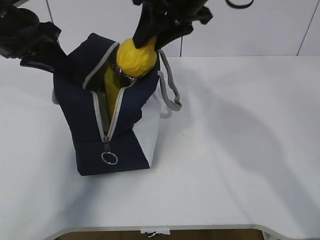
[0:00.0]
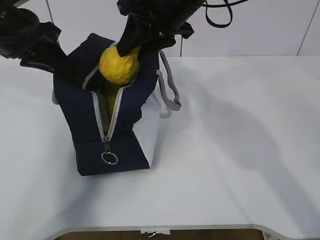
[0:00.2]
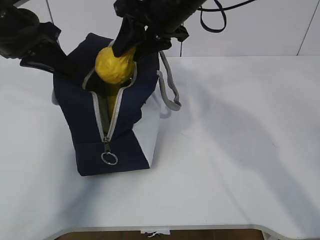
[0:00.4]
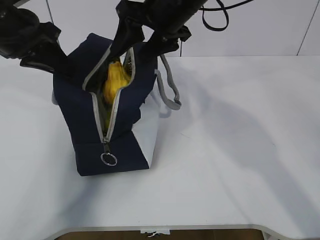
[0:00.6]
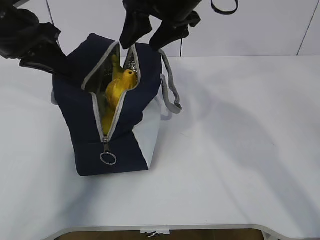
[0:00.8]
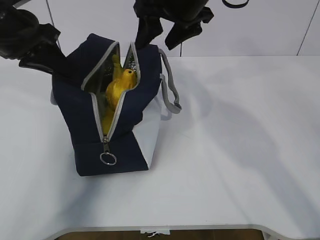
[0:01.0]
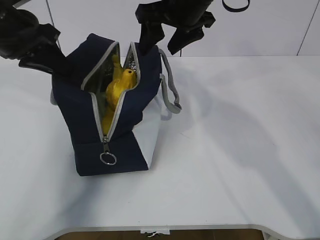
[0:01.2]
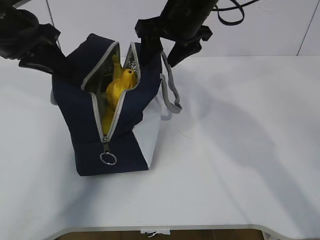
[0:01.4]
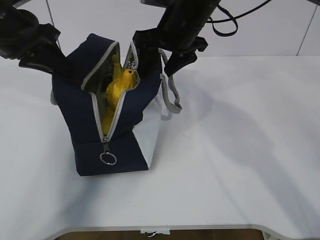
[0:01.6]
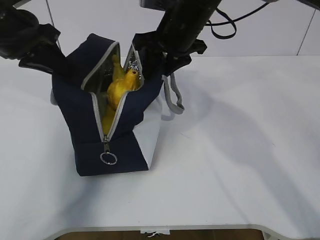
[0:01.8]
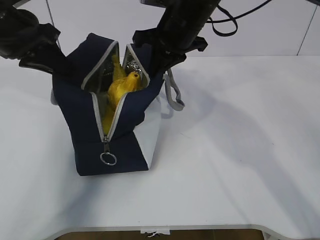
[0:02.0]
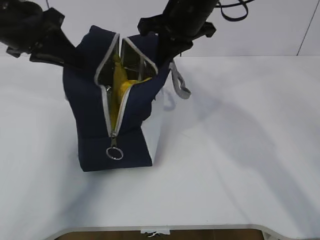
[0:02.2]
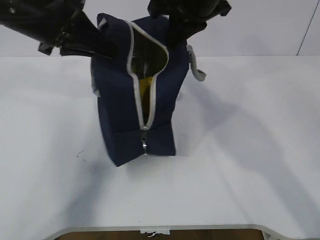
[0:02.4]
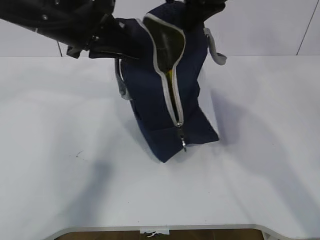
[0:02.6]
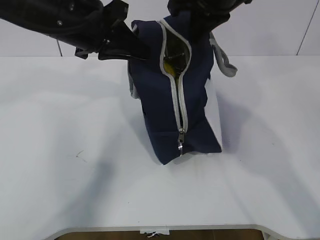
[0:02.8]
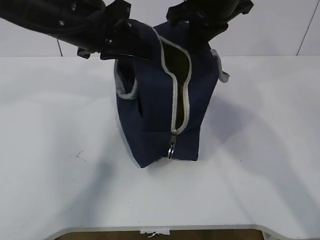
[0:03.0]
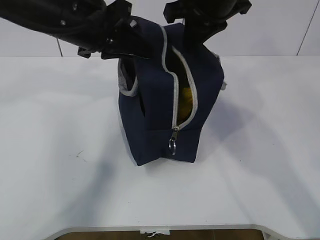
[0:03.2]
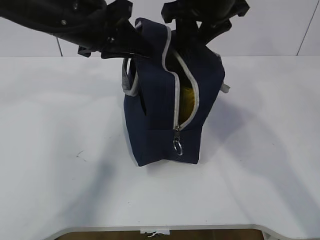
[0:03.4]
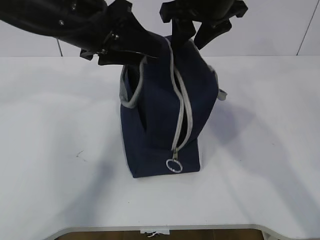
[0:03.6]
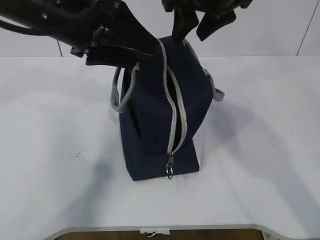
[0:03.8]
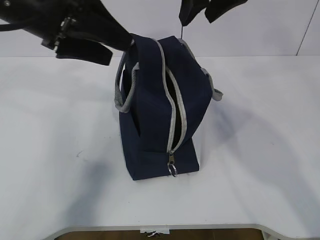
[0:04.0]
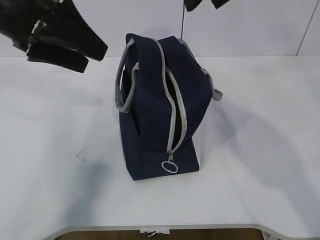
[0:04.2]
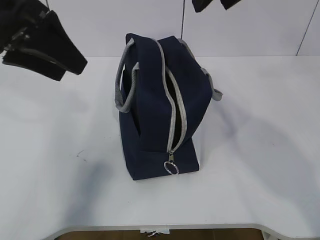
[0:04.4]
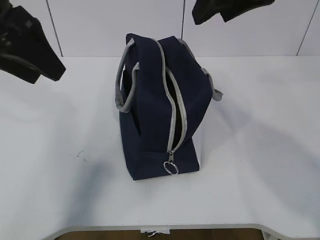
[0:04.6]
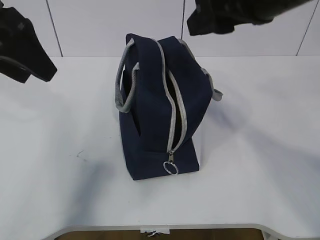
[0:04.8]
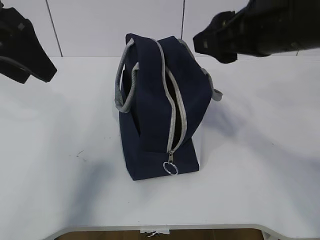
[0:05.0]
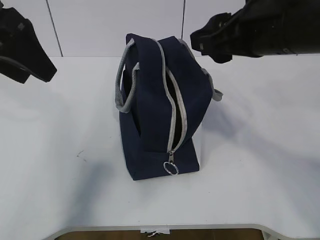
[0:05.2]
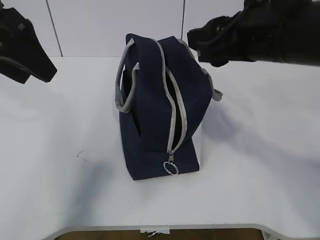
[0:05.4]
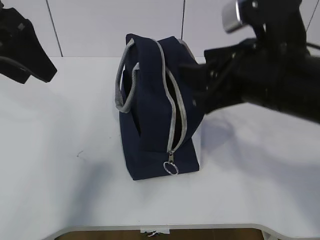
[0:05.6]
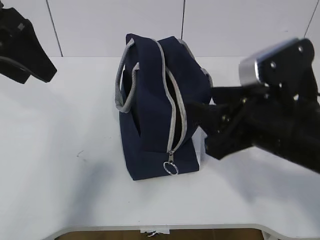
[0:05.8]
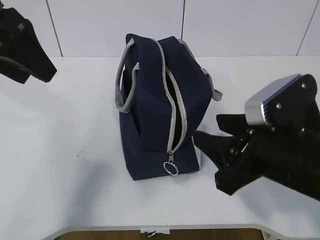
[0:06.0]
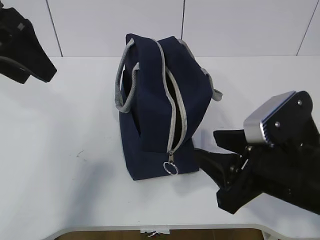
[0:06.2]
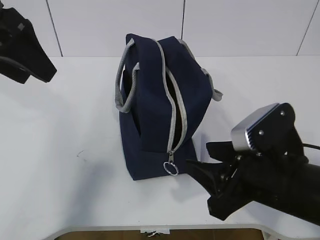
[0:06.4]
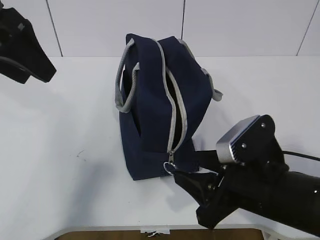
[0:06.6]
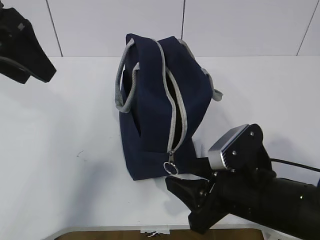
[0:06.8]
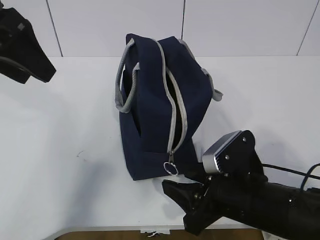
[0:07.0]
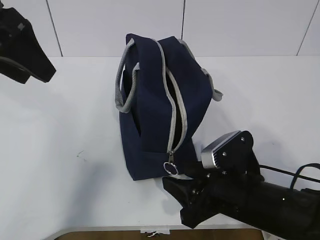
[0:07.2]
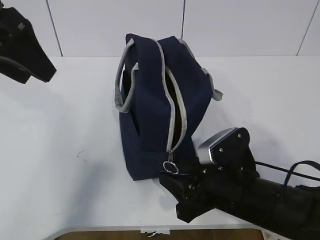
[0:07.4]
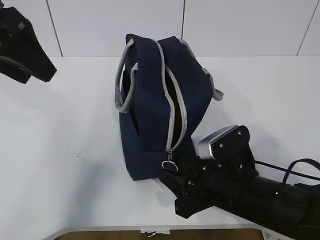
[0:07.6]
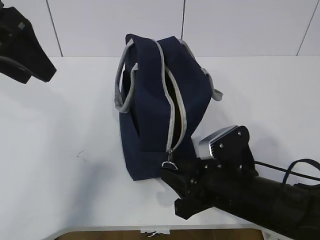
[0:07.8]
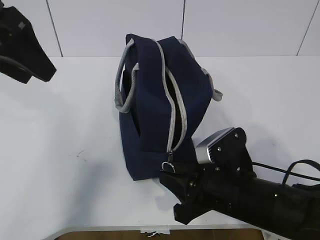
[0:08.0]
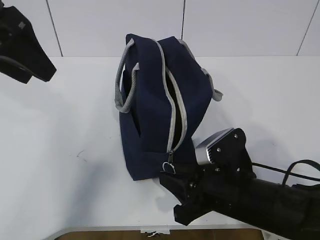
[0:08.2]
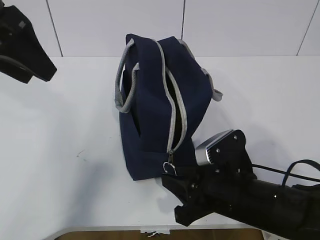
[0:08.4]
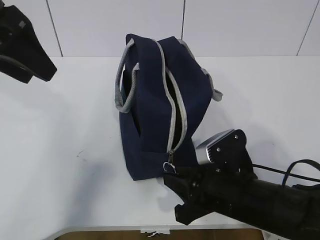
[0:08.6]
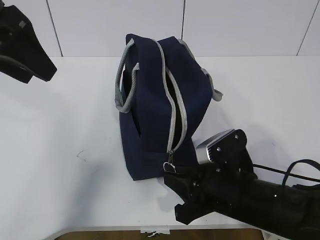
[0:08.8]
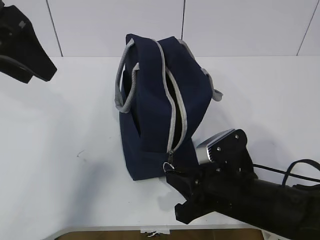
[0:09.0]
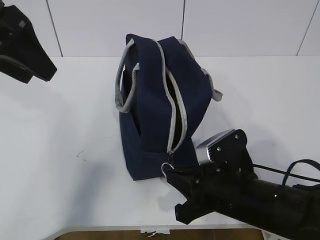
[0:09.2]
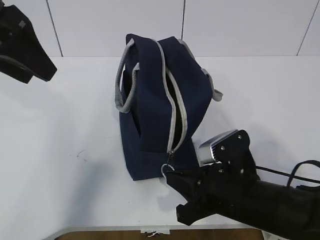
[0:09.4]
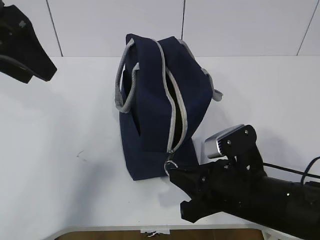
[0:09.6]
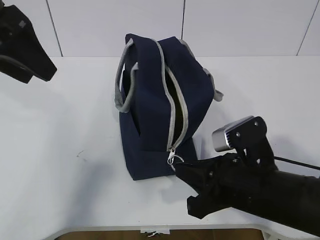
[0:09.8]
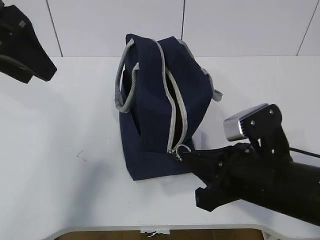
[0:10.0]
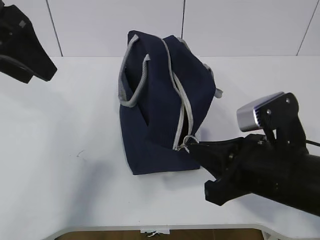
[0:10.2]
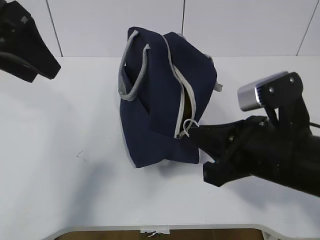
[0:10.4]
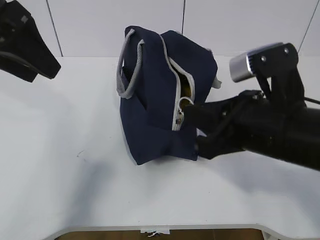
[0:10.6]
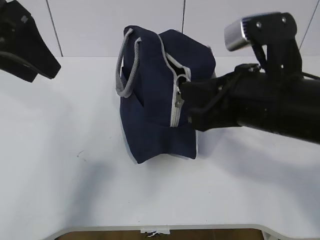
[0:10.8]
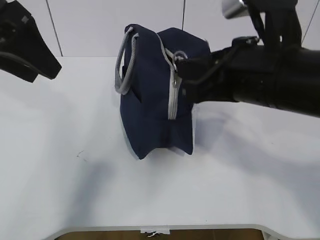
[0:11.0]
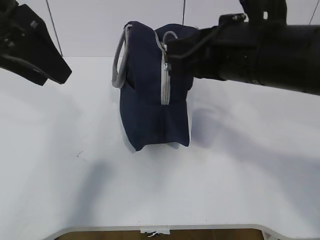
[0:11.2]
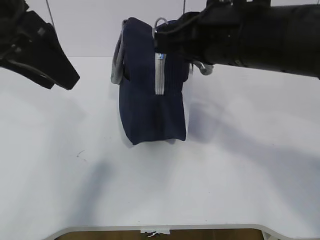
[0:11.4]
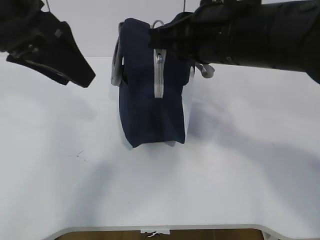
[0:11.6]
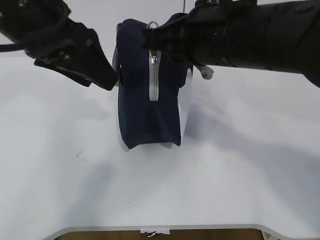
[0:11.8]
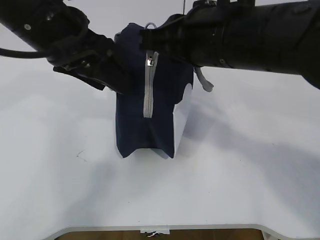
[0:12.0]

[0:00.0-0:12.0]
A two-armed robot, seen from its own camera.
0:00.0 to 0:01.6: The right gripper shifts about 5 cm downward, and opens its fingers.
0:01.6 to 0:03.0: The right gripper is displaced upward by some 5 cm, and closes; the left gripper heads to the right, covering roughly 10 cm.
0:03.0 to 0:04.4: The left gripper travels to the left by about 10 cm, and opens. Meanwhile the right gripper shifts roughly 10 cm upward and backward, and opens.
0:04.4 to 0:06.0: The right gripper heads downward and backward, covering some 25 cm.
0:06.0 to 0:07.6: The right gripper goes roughly 10 cm downward.
0:07.6 to 0:09.0: The right gripper closes up.
0:09.0 to 0:10.4: The right gripper is displaced upward by some 10 cm.
0:10.4 to 0:12.0: The left gripper moves to the right, roughly 10 cm; the right gripper travels upward, forward and to the left by approximately 15 cm.

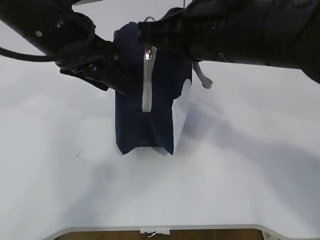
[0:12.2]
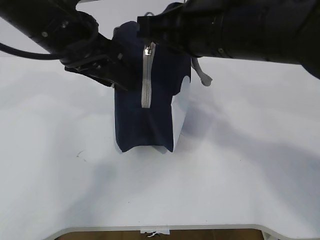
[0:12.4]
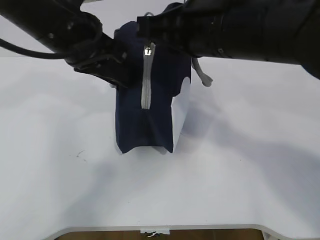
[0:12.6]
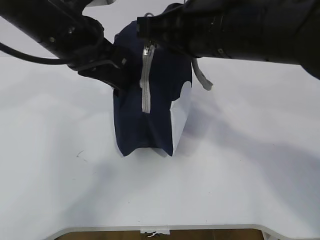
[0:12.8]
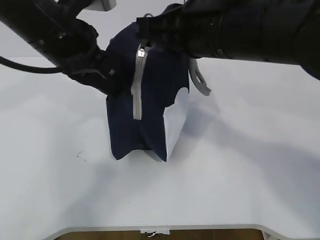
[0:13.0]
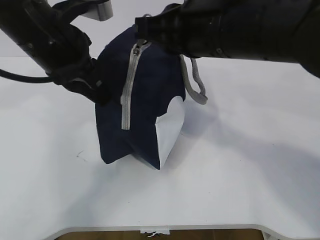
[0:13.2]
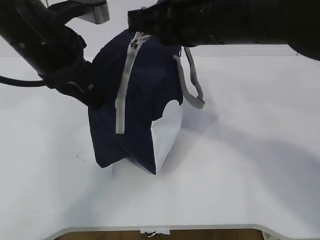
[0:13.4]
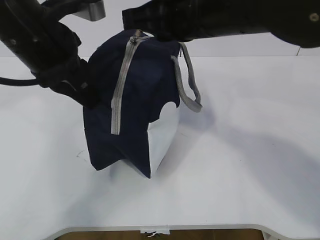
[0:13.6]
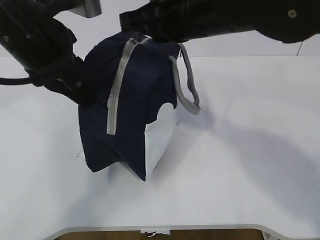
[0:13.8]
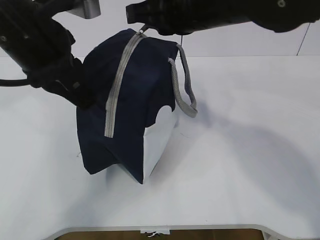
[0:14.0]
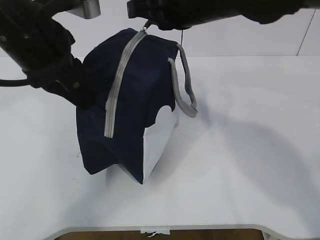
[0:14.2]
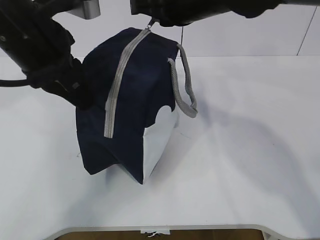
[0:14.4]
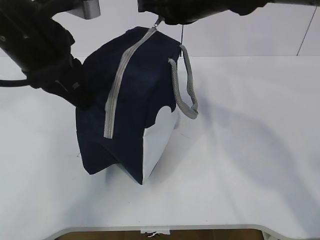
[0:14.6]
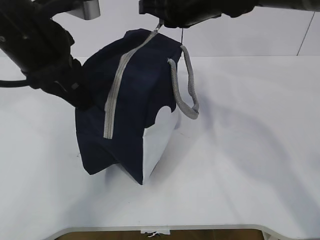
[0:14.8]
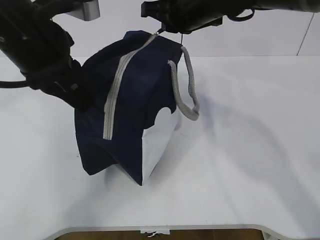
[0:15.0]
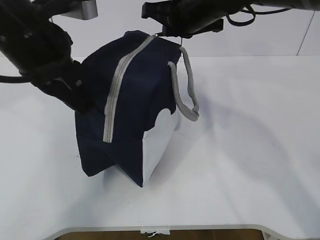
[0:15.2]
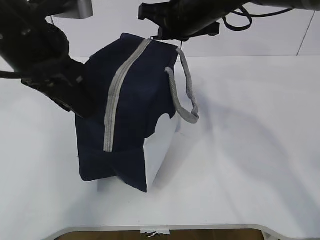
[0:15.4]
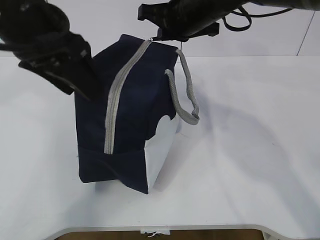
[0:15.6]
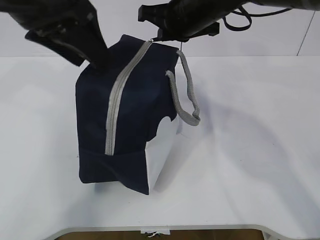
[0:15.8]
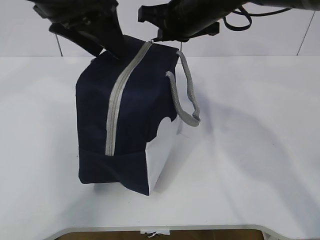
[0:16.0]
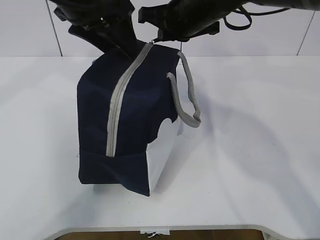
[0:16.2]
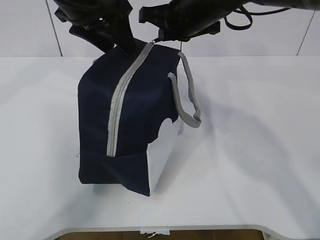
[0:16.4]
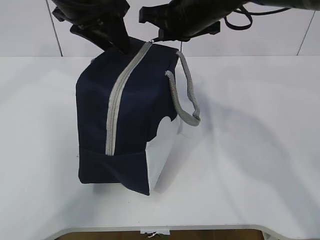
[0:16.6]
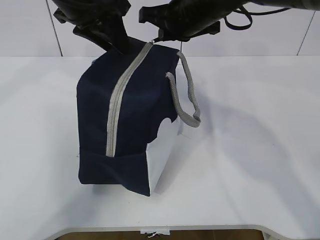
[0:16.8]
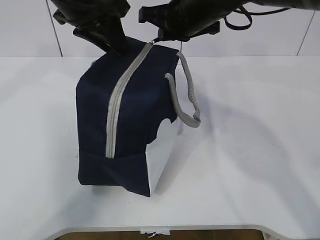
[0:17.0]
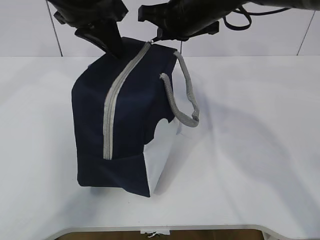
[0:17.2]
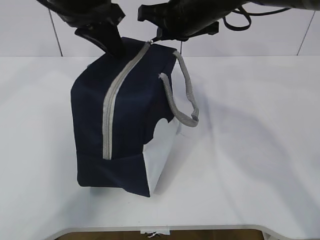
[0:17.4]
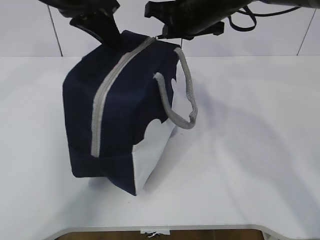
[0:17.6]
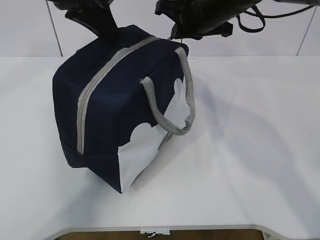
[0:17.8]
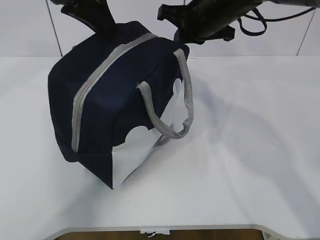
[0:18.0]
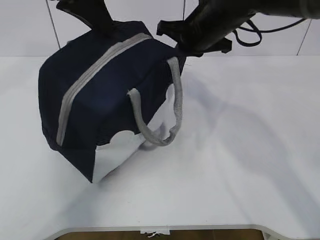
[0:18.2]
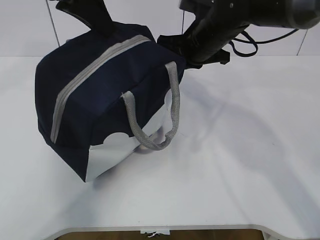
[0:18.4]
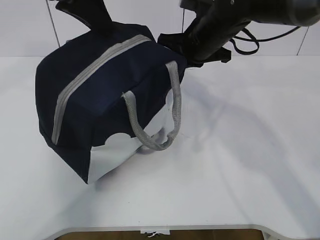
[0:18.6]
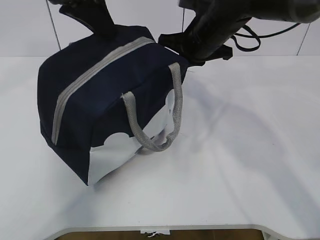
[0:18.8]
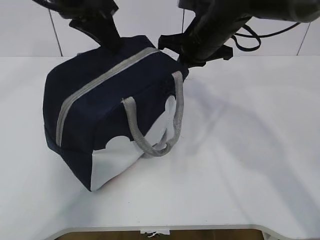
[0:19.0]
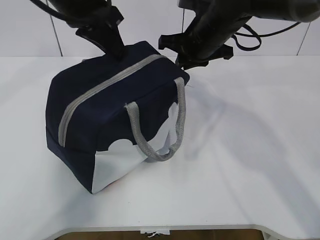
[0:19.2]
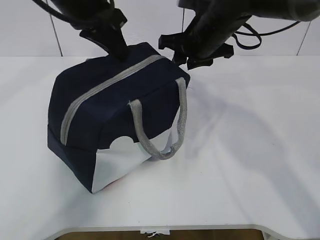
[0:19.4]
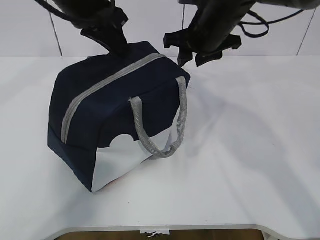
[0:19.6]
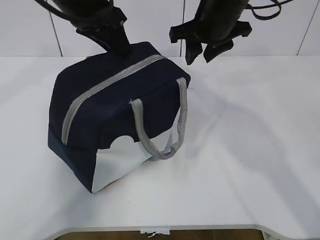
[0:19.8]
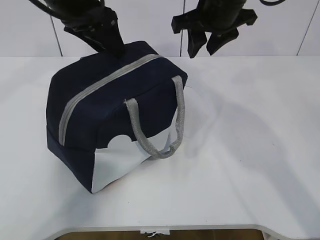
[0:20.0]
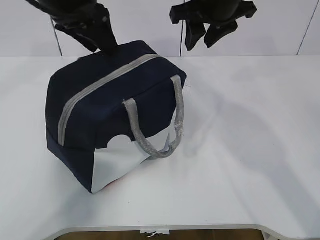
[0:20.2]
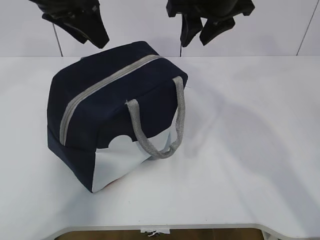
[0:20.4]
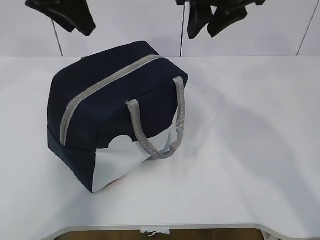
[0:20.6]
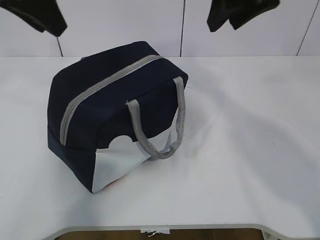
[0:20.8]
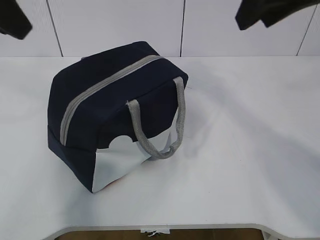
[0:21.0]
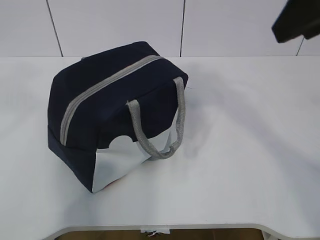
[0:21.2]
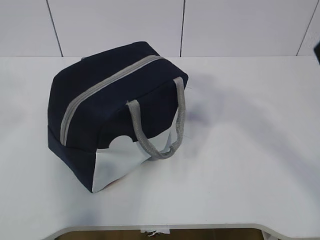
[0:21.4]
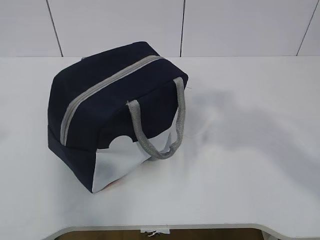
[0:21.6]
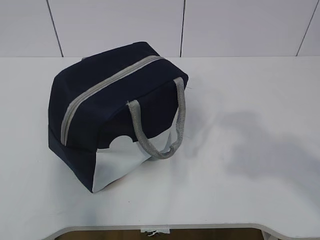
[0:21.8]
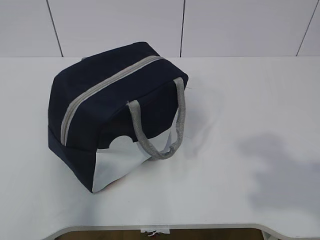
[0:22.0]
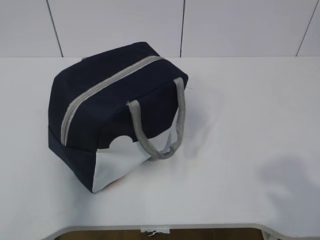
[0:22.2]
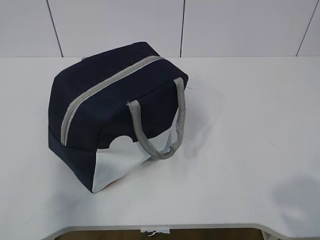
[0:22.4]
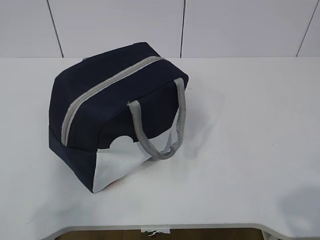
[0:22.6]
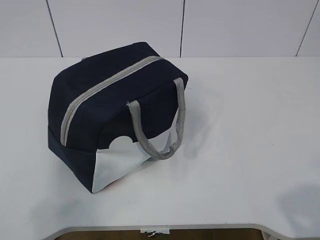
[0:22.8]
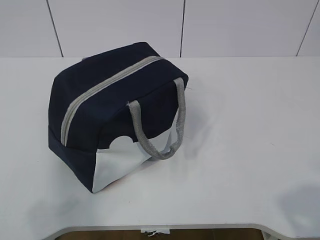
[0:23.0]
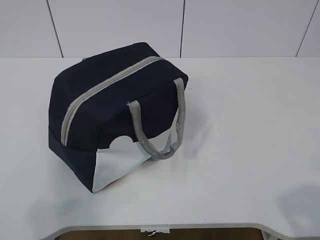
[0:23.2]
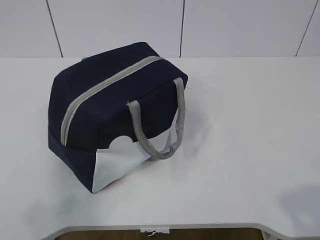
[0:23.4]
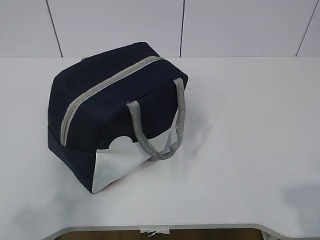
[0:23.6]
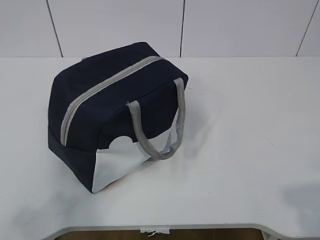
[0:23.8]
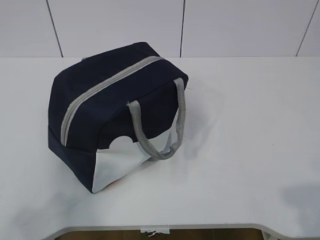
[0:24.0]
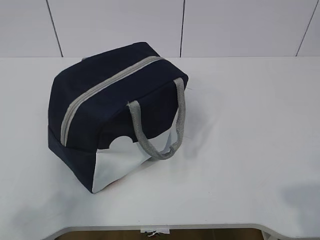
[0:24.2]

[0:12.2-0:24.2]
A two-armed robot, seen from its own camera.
Step, 0:12.2 to 0:20.2: zip up the zipper to close the bag.
0:12.2 to 0:13.8: The left gripper closes.
0:13.8 to 0:15.2: The right gripper travels forward by roughly 10 cm.
0:15.2 to 0:16.6: The left gripper travels forward by some 10 cm, and opens up.
0:16.6 to 0:18.2: The left gripper shifts by some 5 cm, and closes.
0:18.2 to 0:19.8: The right gripper opens its fingers; the left gripper shifts by approximately 5 cm, and opens.
0:19.8 to 0:21.2: The left gripper travels backward, to the left and upward by roughly 25 cm; the right gripper shifts about 25 cm backward and upward.
0:21.2 to 0:22.6: The grippers both shift backward and downward by approximately 25 cm.
